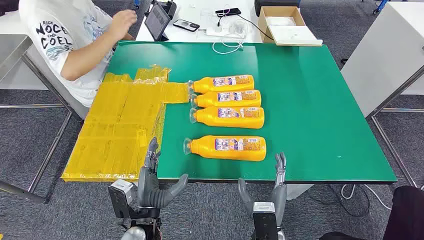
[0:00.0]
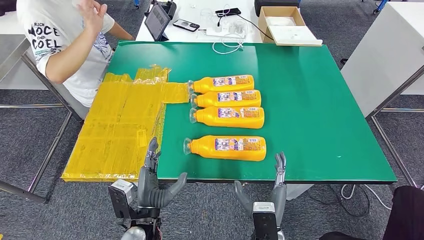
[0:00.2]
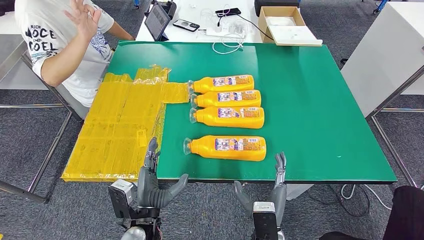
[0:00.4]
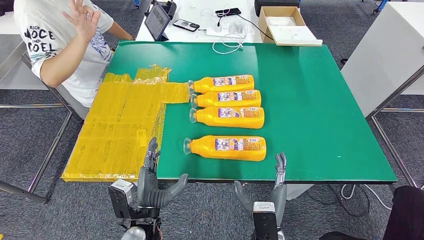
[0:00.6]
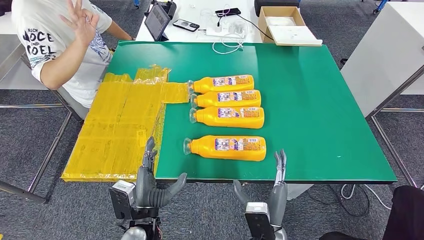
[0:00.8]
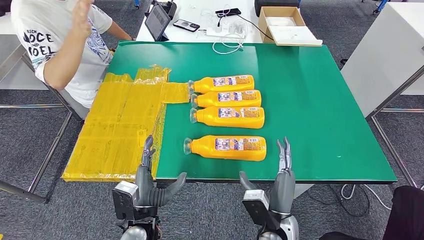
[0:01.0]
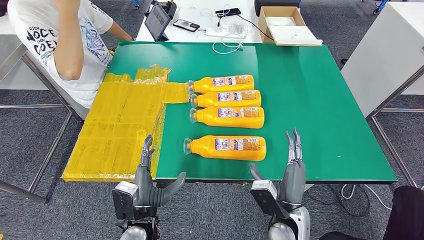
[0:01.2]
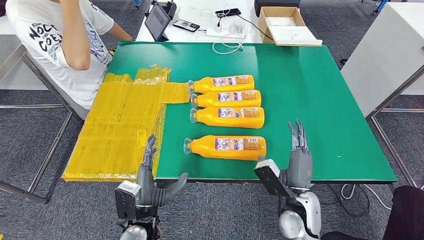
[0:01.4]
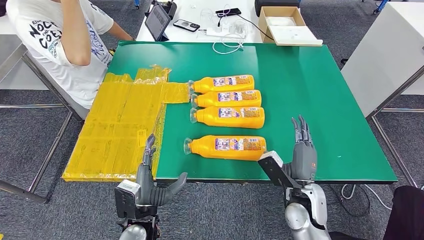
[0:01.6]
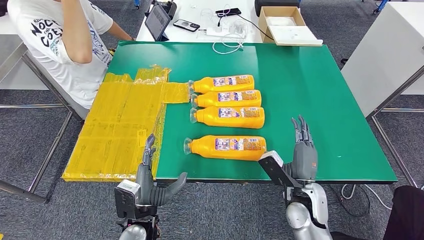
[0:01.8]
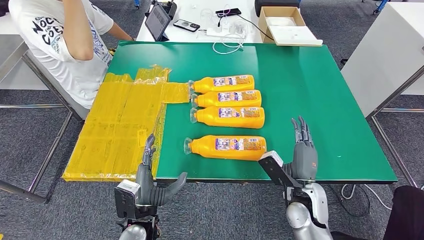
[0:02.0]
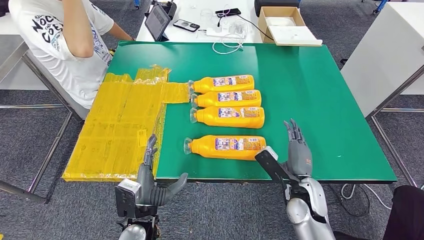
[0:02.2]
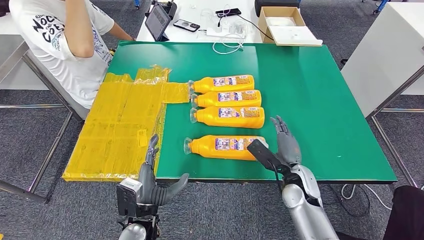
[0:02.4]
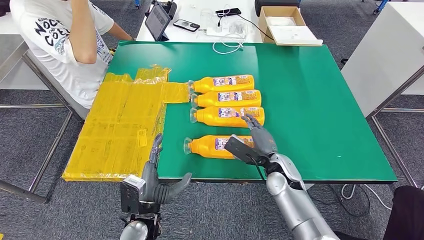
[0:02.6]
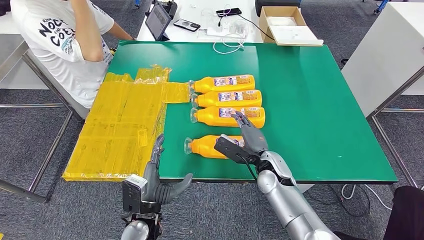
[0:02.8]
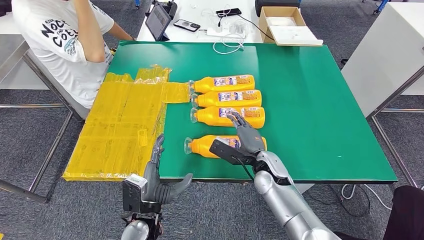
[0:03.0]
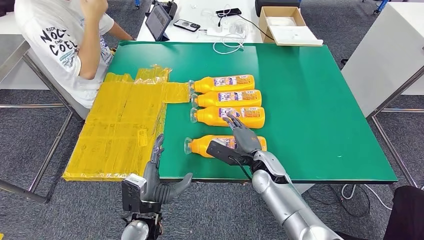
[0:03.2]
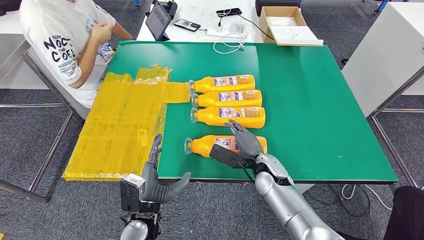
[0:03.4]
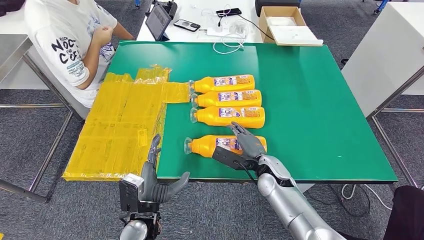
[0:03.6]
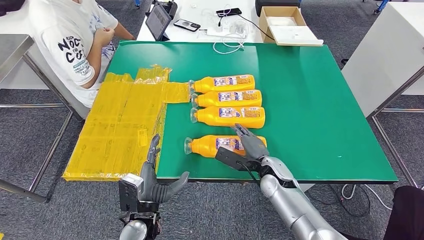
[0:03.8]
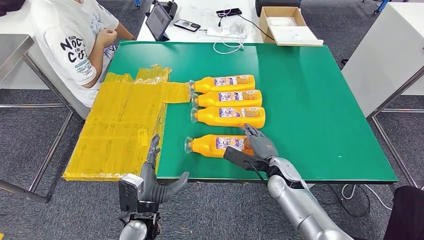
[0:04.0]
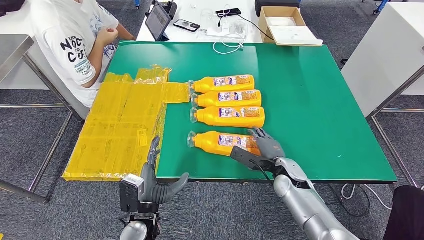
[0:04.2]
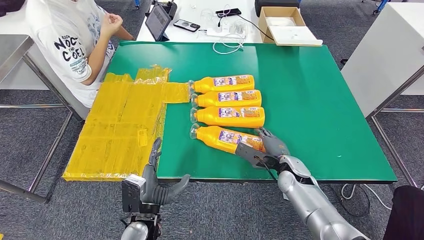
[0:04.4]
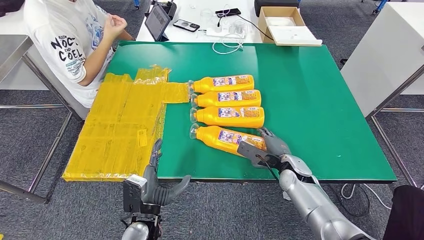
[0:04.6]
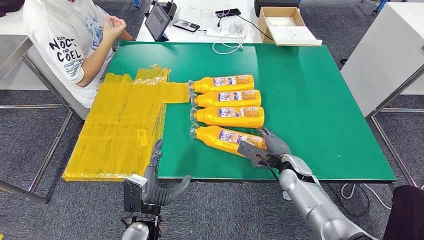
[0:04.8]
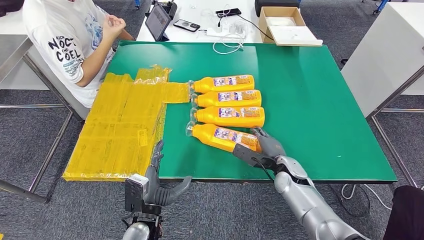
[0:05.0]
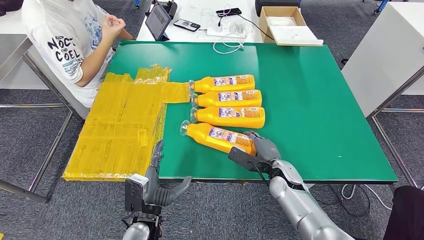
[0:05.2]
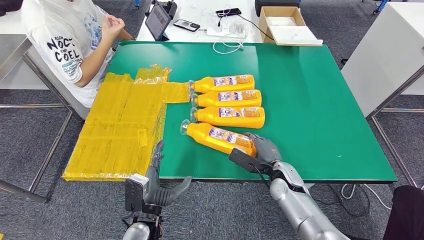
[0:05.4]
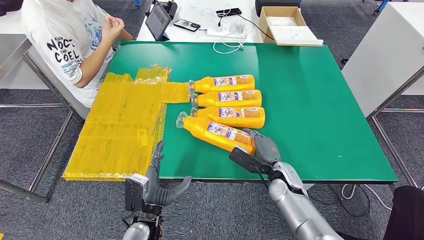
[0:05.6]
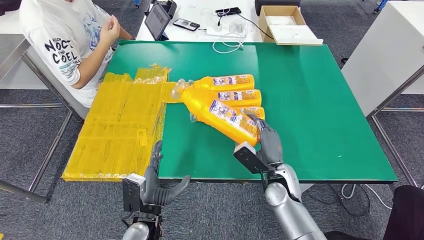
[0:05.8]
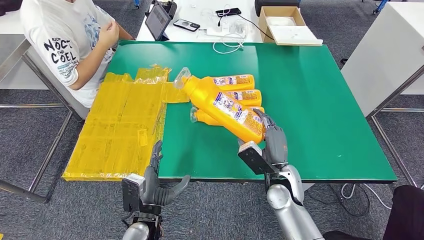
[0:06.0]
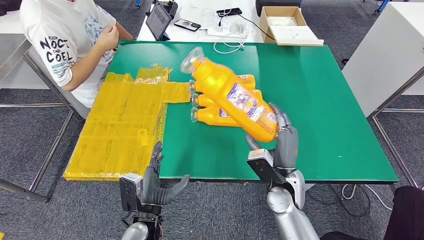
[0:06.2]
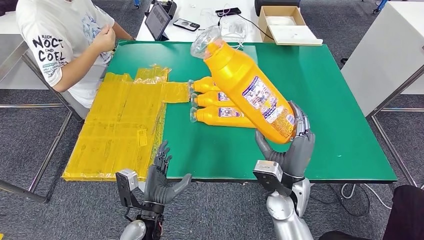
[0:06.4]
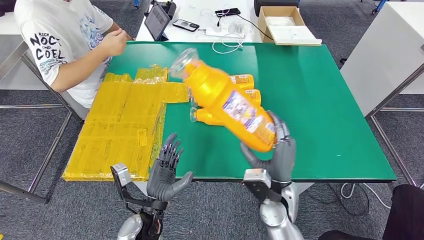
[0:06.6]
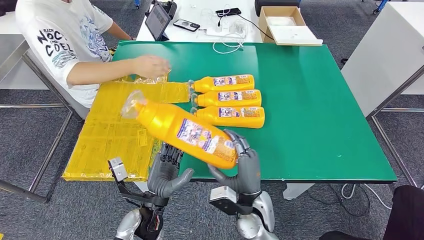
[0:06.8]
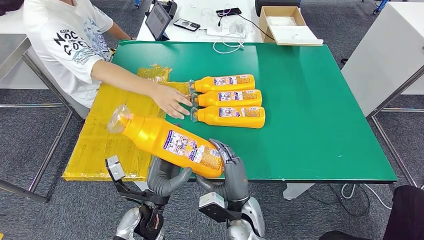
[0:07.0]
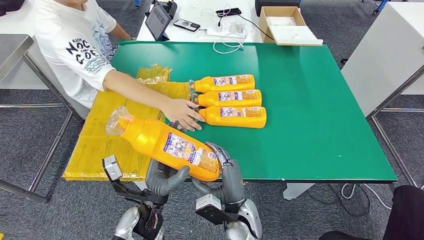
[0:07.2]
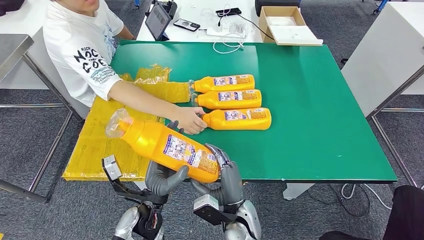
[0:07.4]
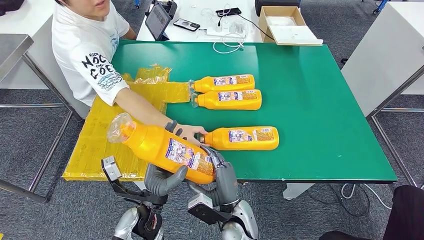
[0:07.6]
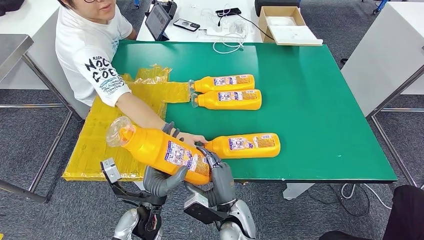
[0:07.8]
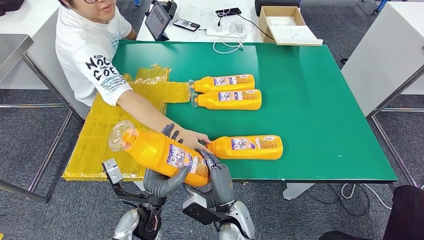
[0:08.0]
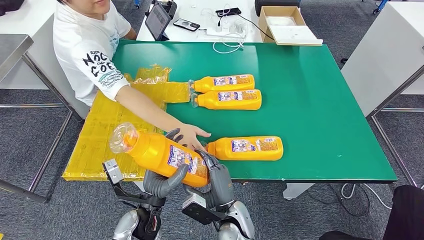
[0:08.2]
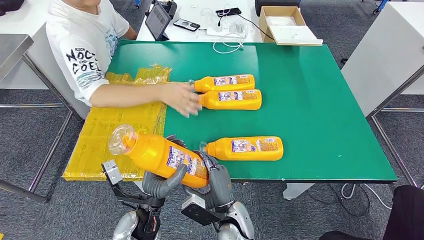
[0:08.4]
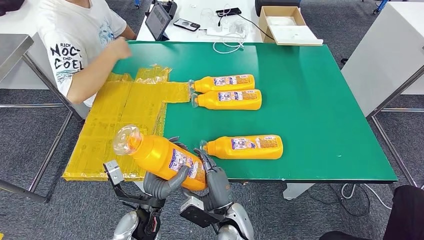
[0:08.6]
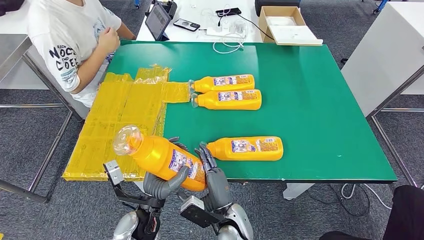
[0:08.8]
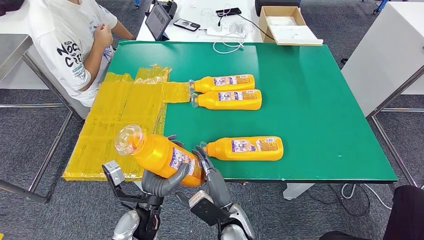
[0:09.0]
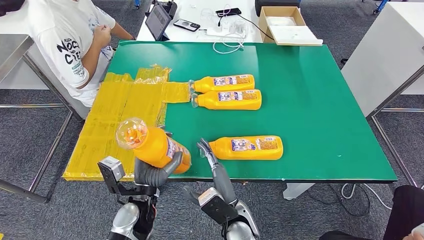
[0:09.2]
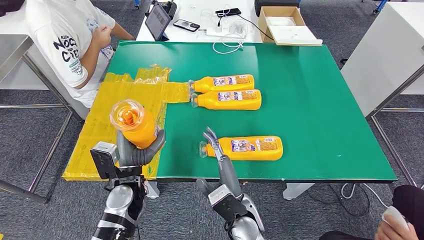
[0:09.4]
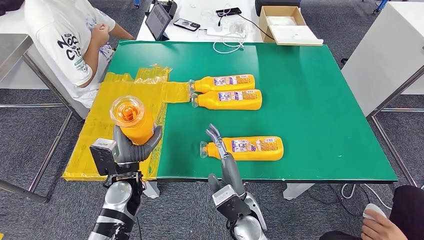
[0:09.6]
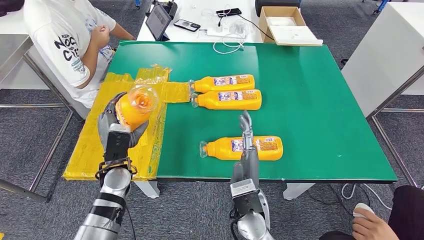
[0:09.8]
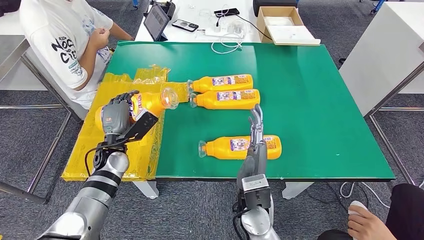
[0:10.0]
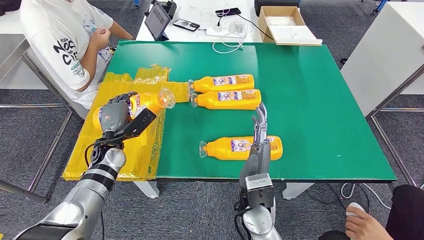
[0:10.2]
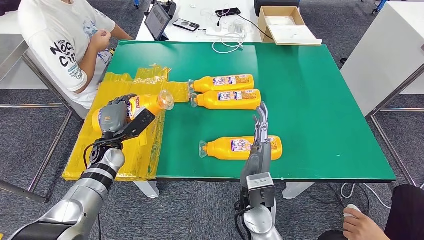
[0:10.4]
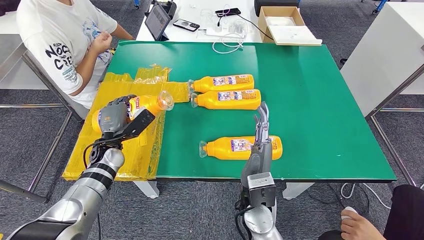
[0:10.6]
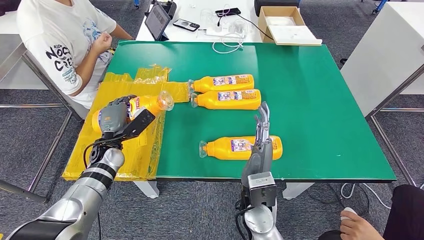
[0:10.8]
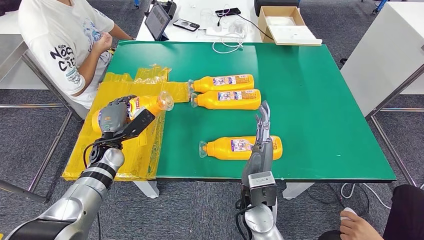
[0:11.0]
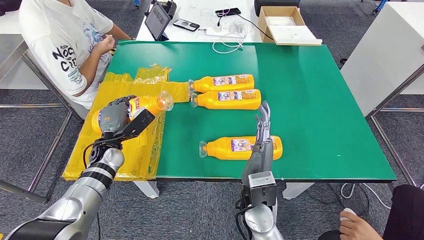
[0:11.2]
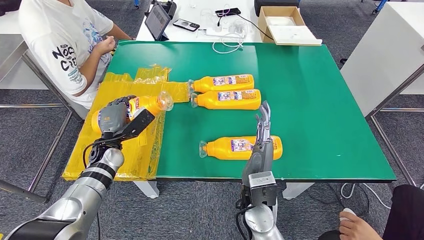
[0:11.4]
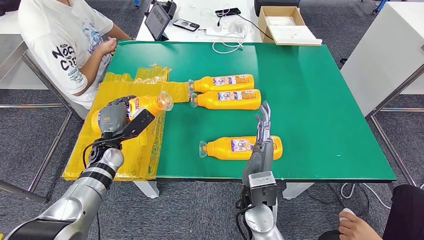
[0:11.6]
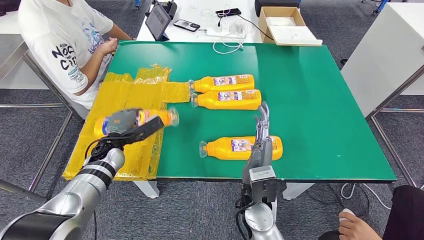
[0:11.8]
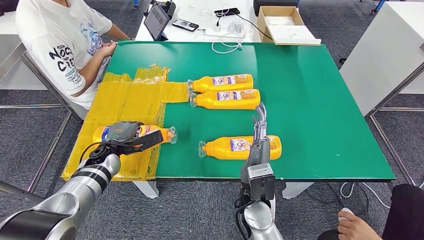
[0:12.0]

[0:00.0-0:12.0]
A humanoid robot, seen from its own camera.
Step, 0:00.0 to 0:06.2: Take the fast-moving consumer goods bottle from the table.
0:01.6 to 0:03.0: The right hand shifts some 10 cm forward and to the left.
0:03.0 to 0:04.4: The right hand moves to the right, about 10 cm.
0:04.4 to 0:06.0: The right hand moves about 10 cm.
0:07.6 to 0:09.0: There are only small adjustments of the hands.

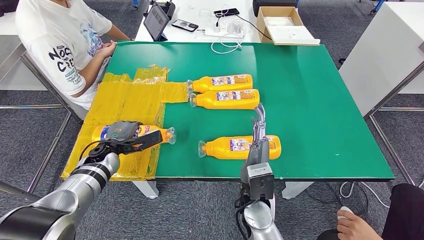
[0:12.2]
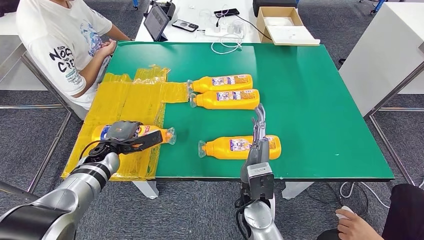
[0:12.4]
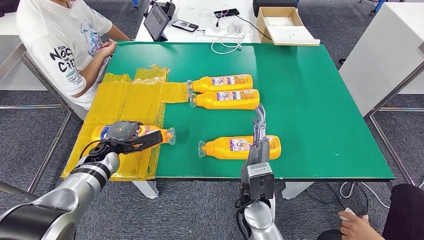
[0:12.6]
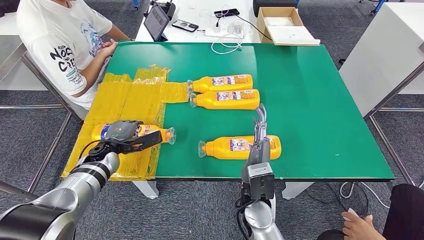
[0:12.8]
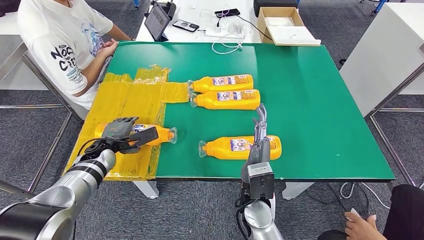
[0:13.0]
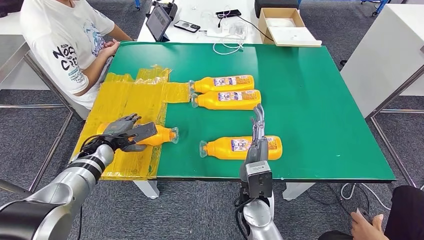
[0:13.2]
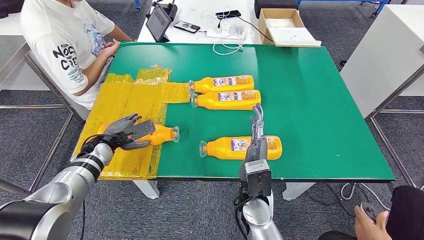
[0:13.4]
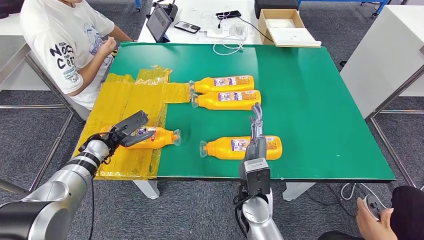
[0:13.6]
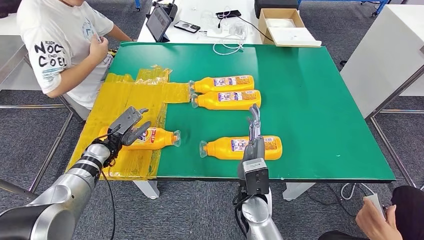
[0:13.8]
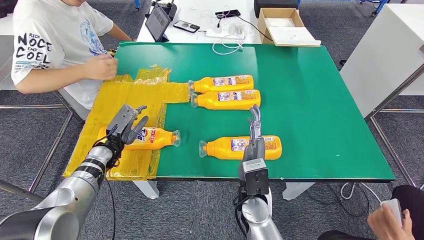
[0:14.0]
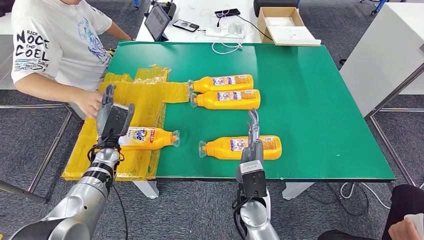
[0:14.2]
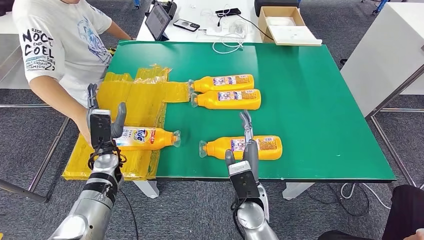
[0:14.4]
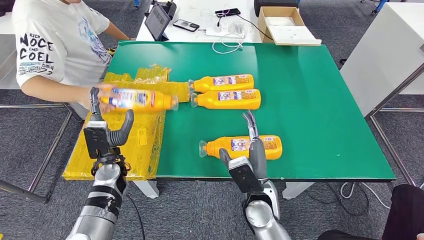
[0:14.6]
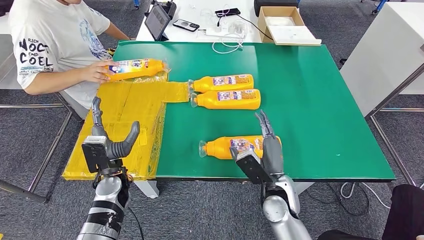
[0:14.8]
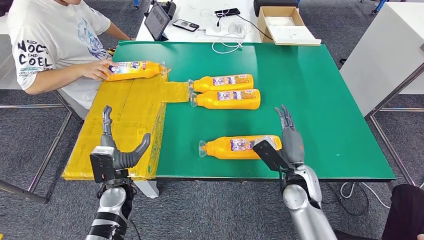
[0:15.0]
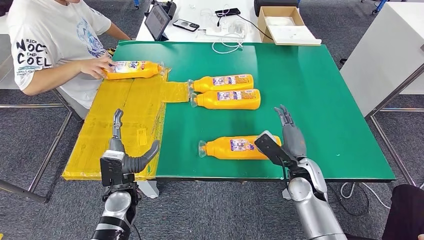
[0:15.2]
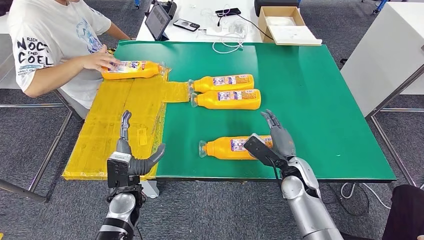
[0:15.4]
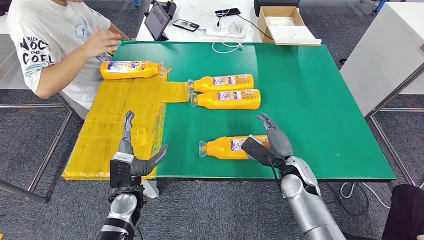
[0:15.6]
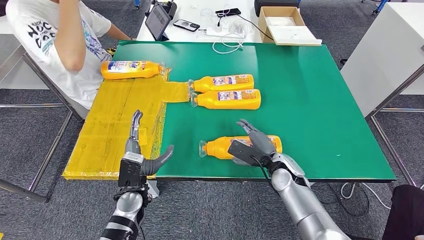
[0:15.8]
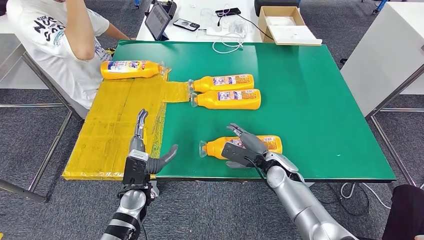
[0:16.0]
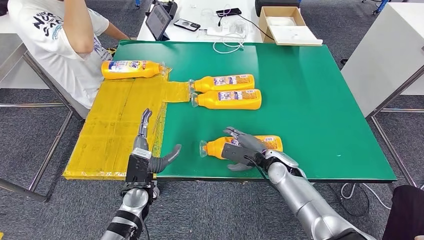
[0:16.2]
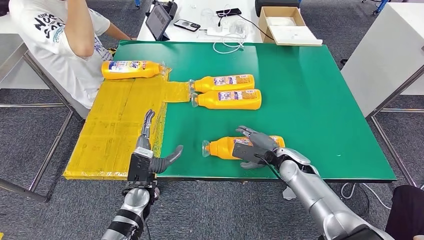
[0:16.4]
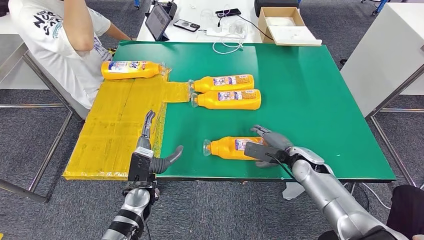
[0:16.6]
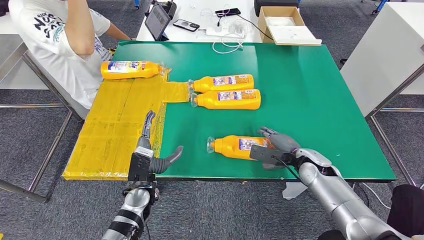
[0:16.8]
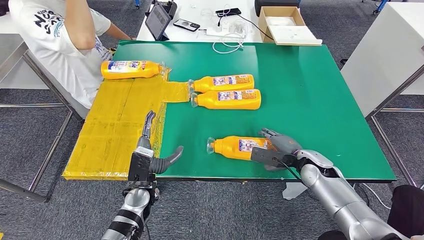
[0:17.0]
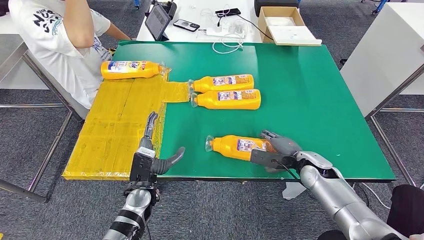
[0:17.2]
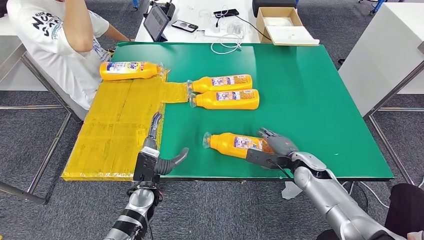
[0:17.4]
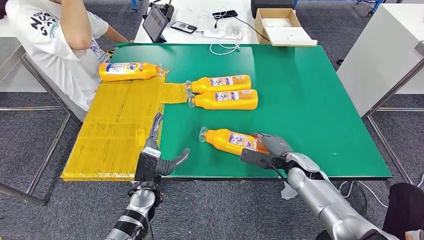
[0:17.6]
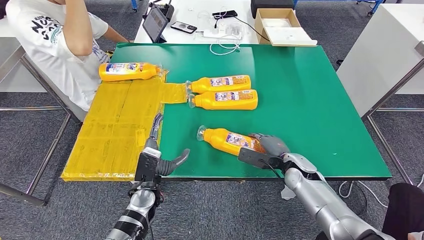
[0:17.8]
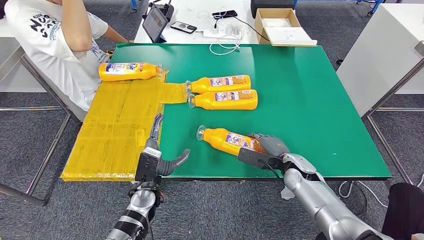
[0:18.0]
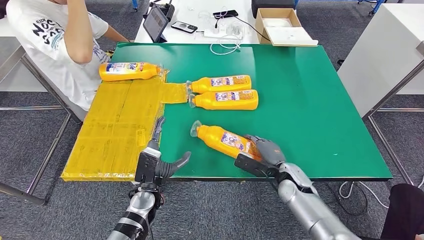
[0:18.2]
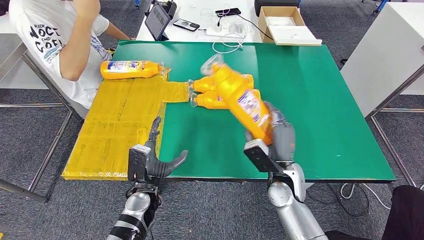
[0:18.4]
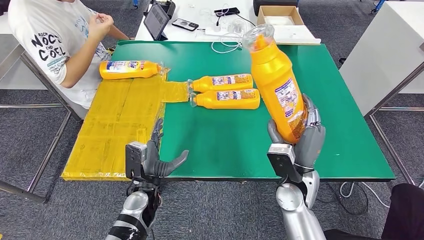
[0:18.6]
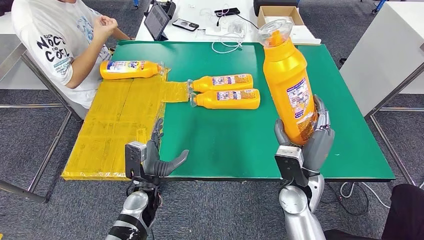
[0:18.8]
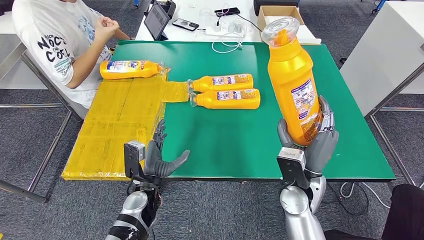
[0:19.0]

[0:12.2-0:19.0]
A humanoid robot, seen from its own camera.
Step, 0:12.2 to 0:14.6: Flip the fast-moving consumer goods bottle to the front side.
Step, 0:15.0 to 0:18.8: Pick up the fast-moving consumer goods bottle from the table.
0:15.0 to 0:16.2: The left hand moves to the right, approximately 5 cm, while the right hand moves forward, about 5 cm.
